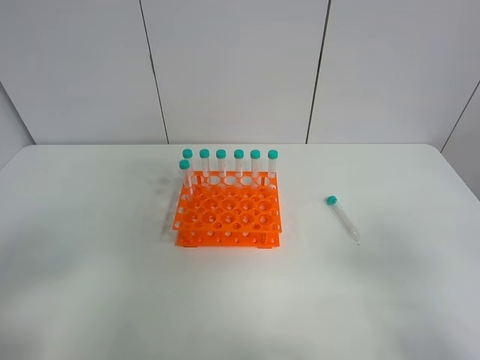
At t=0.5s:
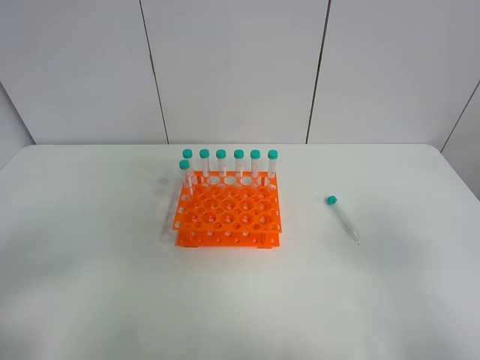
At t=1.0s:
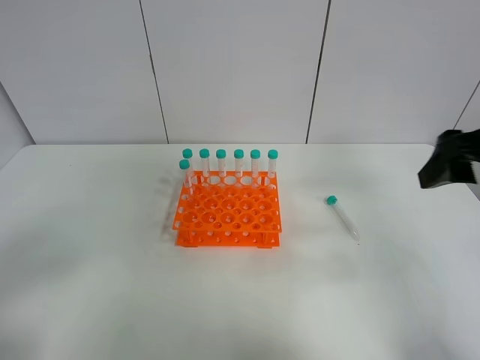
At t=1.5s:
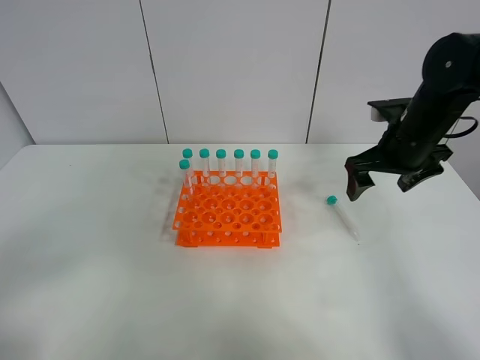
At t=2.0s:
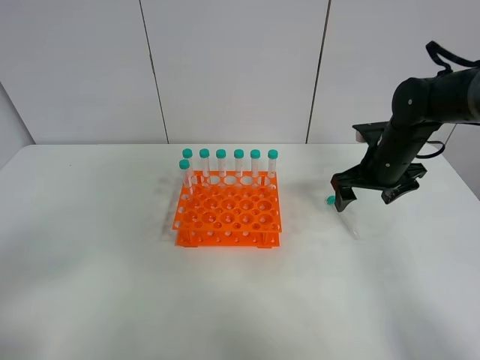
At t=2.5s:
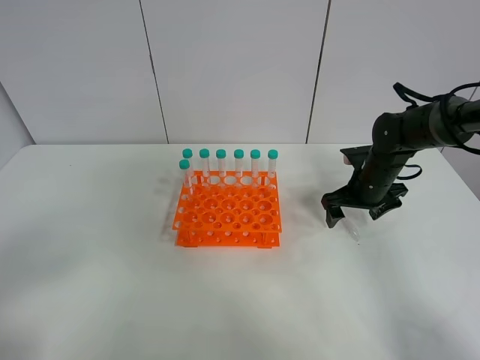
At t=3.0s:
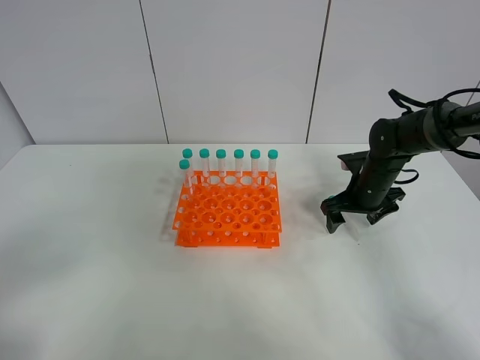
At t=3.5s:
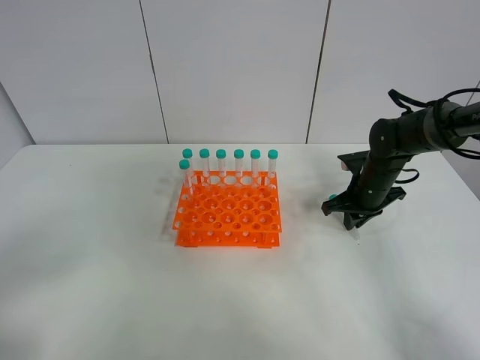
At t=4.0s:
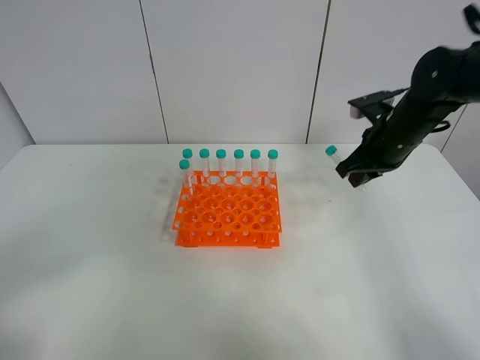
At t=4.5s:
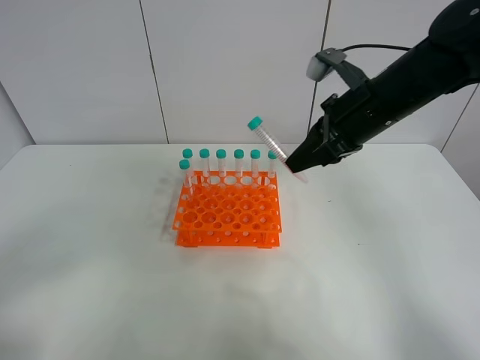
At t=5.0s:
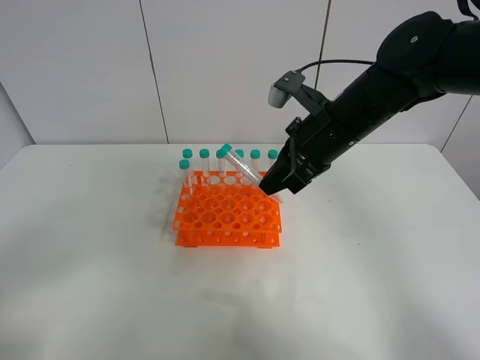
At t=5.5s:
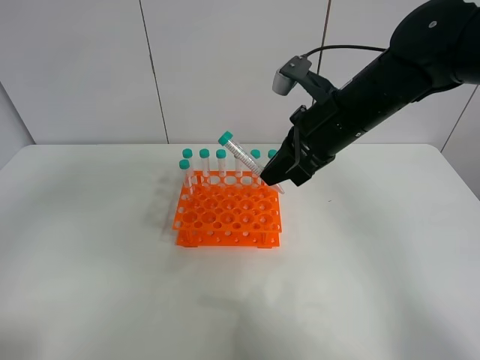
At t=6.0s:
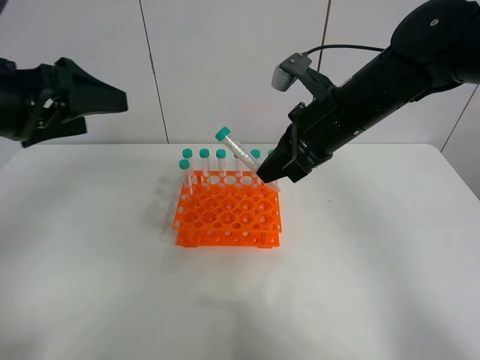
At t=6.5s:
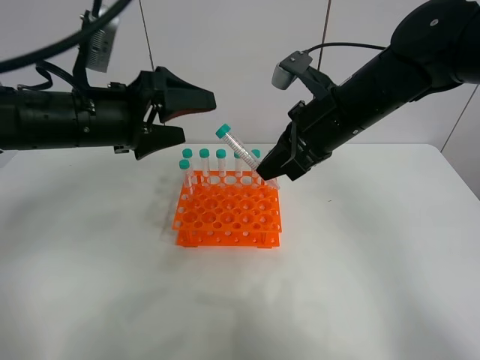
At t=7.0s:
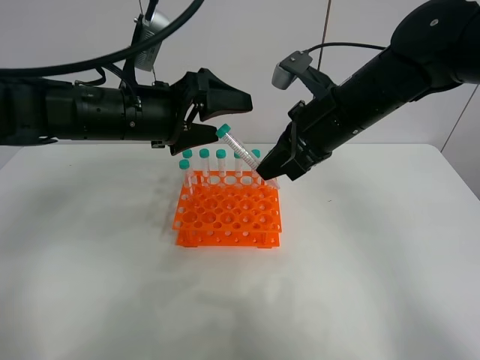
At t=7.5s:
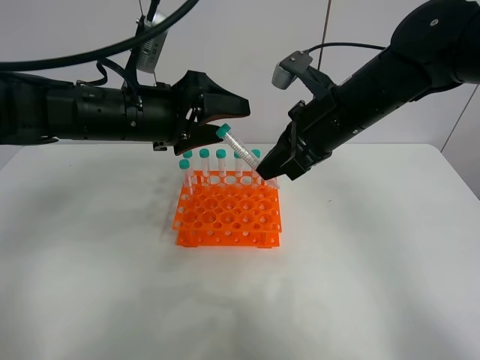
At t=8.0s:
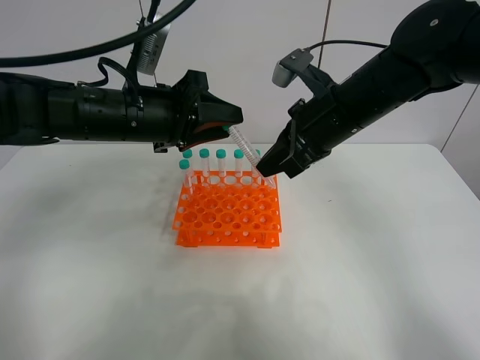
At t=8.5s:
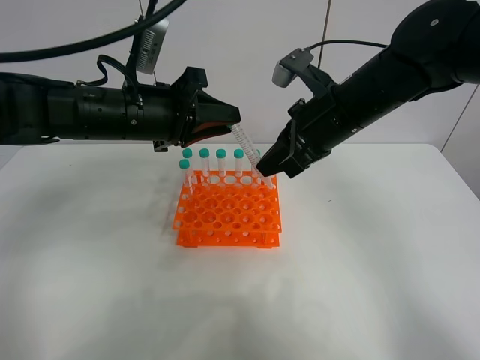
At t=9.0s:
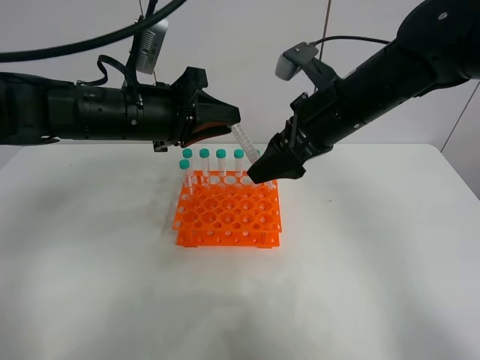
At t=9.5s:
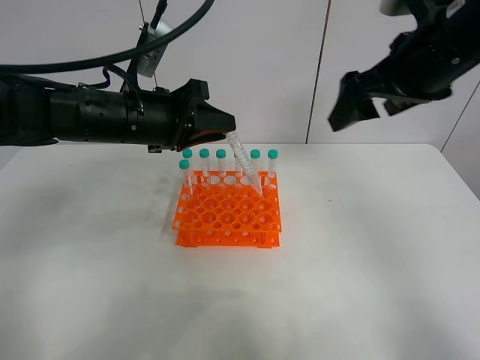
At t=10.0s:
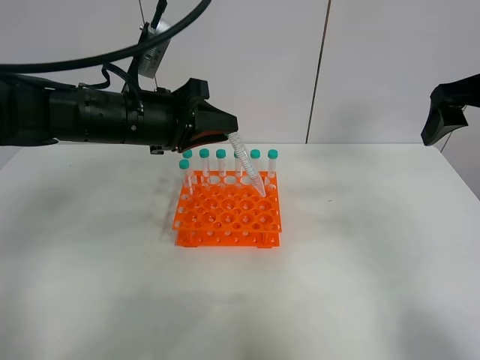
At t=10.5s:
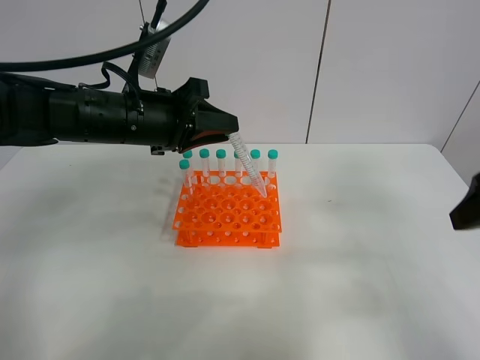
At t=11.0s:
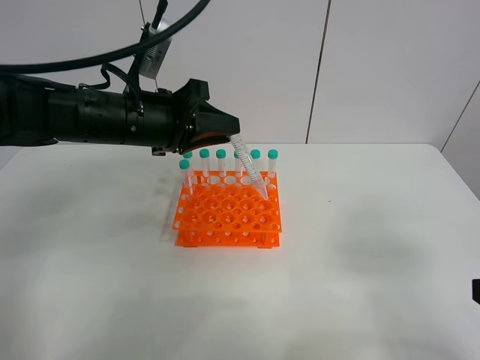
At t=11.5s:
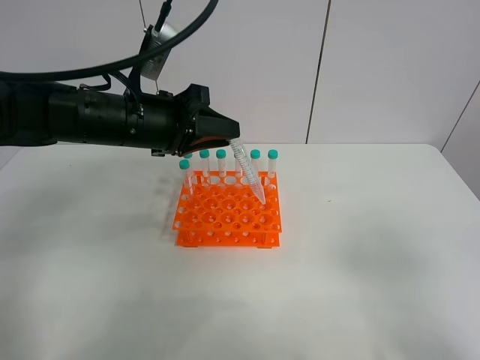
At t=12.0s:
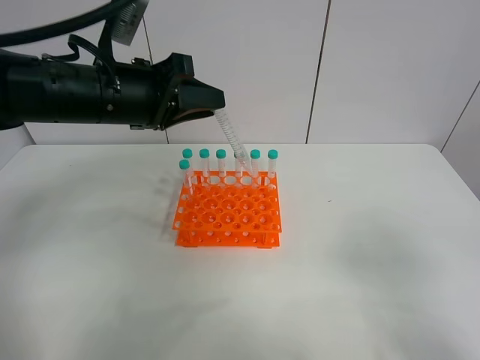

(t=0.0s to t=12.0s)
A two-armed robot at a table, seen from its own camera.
Task of the whole recording: Put the test tube on the table back onto the test tube rack.
Step, t=0.0s - t=3.5s: Pick up the test tube with the right gripper.
Step, t=4.0s - t=9.0s: Move the test tube from the right gripper to the left gripper.
t=0.0s - t=2.0s: The right gripper shifts roughly 40 cm forward.
t=2.0s - t=4.0s: The right gripper goes about 5 cm upward, and closes up.
t=4.0s - t=6.0s: The left gripper travels forward by about 25 cm, while the right gripper travels to the left and backward by roughly 10 cm.
t=6.0s - t=8.0s: The left gripper heads to the right, forward and downward, covering some 15 cm, and closes up.
t=8.0s - t=10.0s: The right gripper travels to the right and upward by roughly 20 cm, and opens.
t=10.0s - t=12.0s: The right gripper moves backward, some 30 cm.

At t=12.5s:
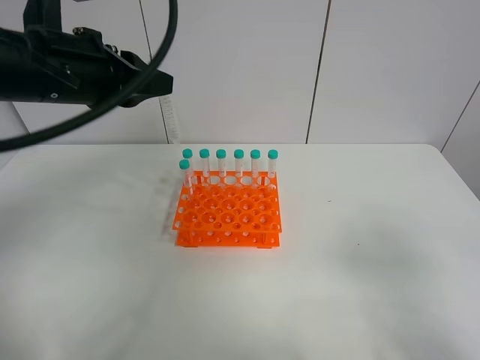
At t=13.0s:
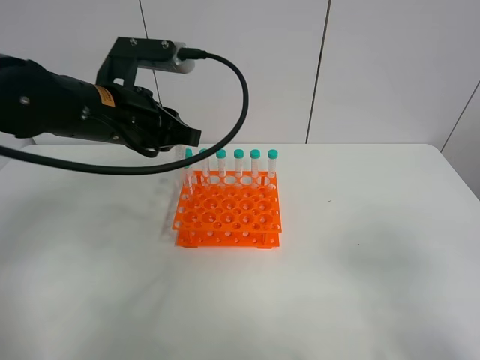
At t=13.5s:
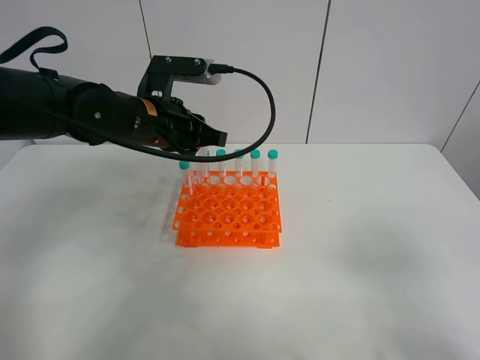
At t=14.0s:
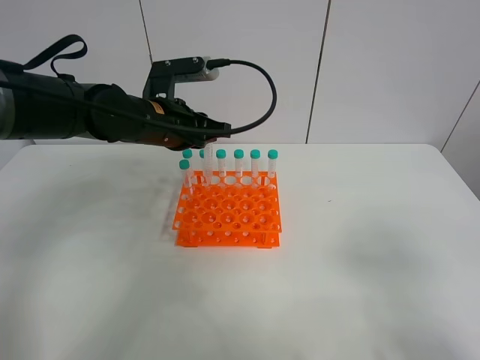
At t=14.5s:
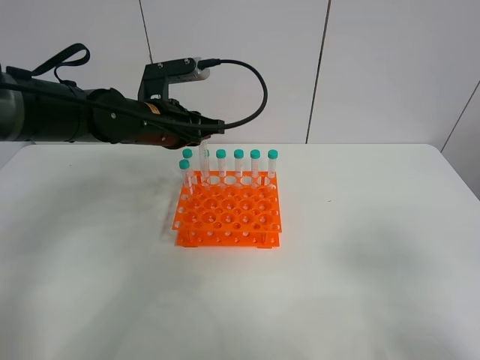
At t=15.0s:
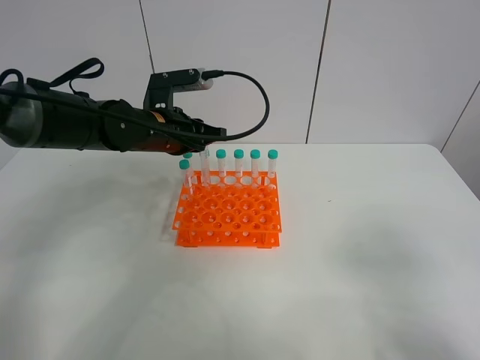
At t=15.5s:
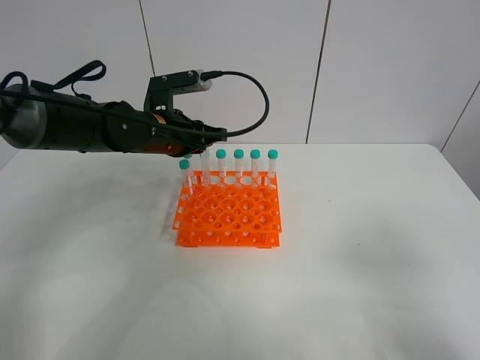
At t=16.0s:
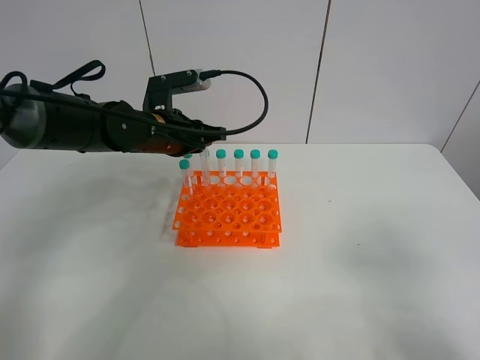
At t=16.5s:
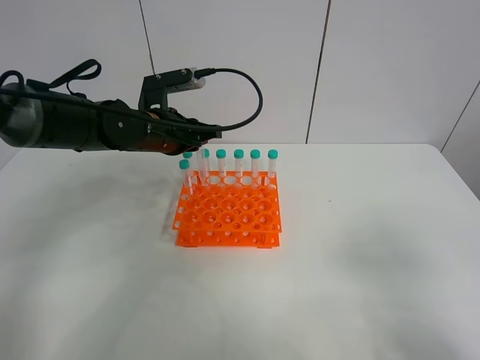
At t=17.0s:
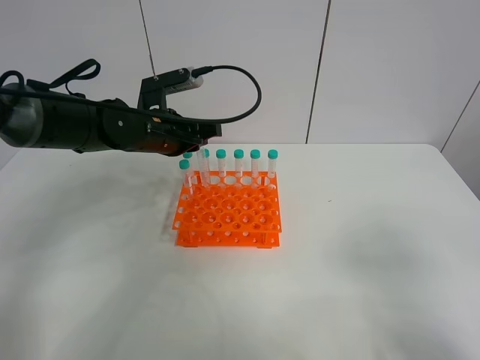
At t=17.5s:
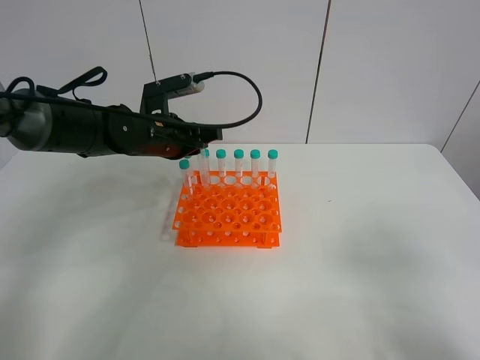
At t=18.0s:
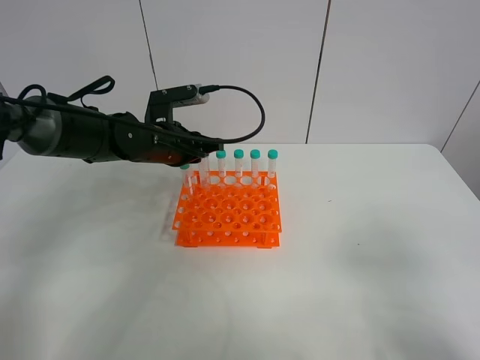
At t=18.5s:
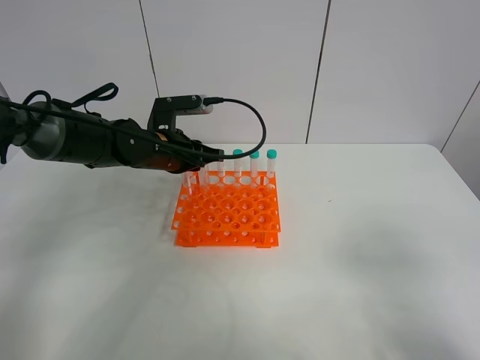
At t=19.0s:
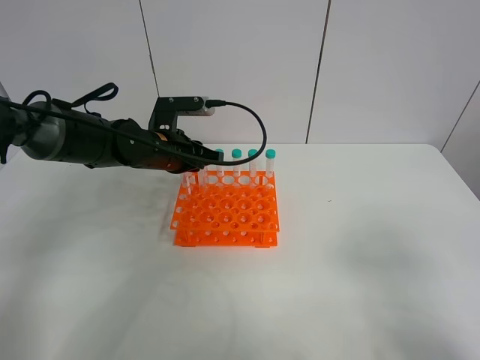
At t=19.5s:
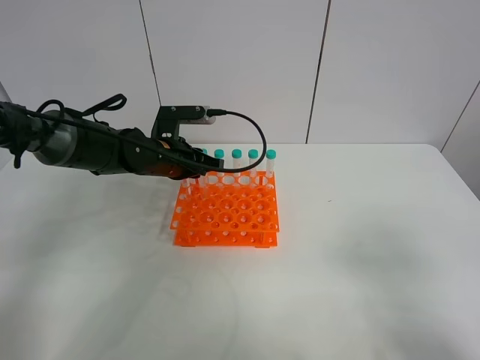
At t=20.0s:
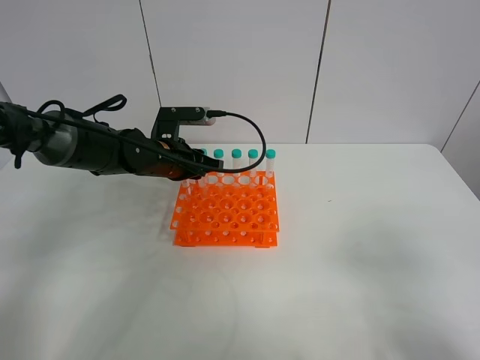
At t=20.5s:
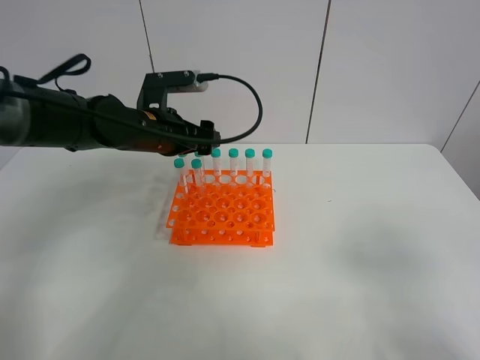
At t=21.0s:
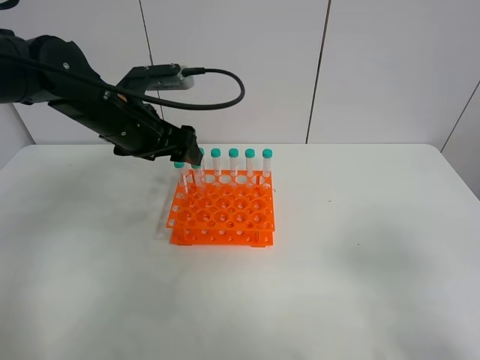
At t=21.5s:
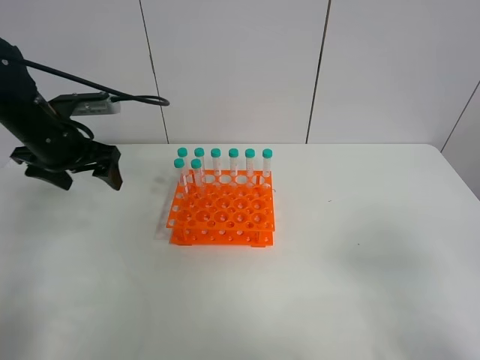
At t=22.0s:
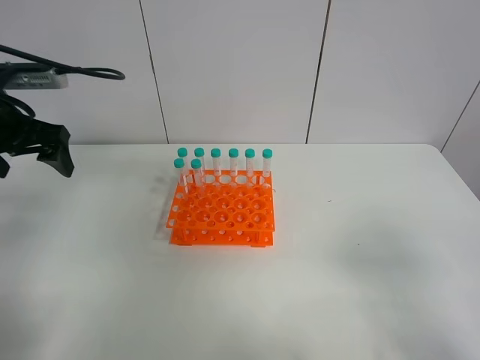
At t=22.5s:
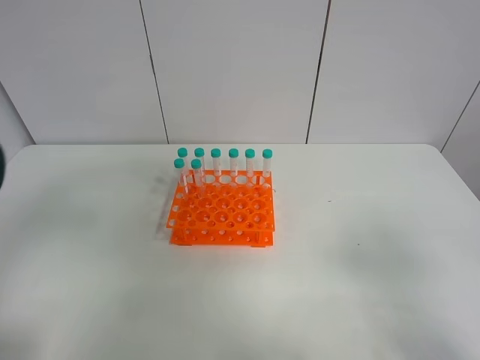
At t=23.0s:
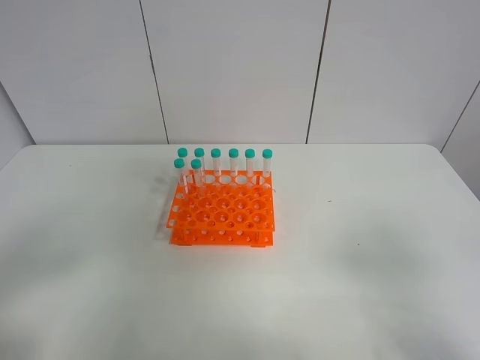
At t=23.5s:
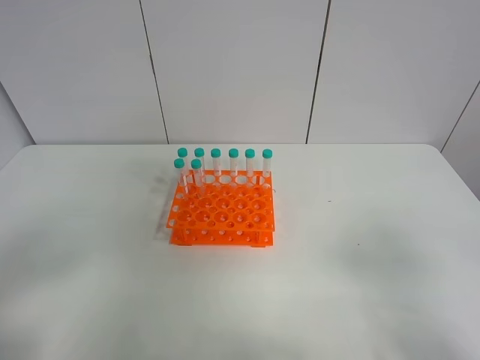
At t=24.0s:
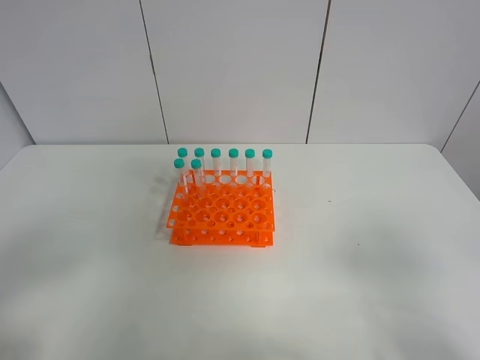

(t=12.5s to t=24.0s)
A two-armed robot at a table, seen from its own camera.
Task of the whole recording: Put the test tube on the table back onto the test tube rack.
Step, t=12.5s - t=20.0s: Place the test tube on the test tube rack with the left gripper.
t=12.5s - t=14.5s: The left gripper travels downward, forward and to the right by some 15 cm.
t=14.5s - t=18.5s: The grippers make only small movements.
t=18.5s - t=20.0s: The grippers make only small movements.
t=20.0s - t=22.0s: The left gripper travels to the left, upward and backward by about 25 cm, and opens.
t=22.0s - t=24.0s: The left gripper travels backward by approximately 30 cm.
